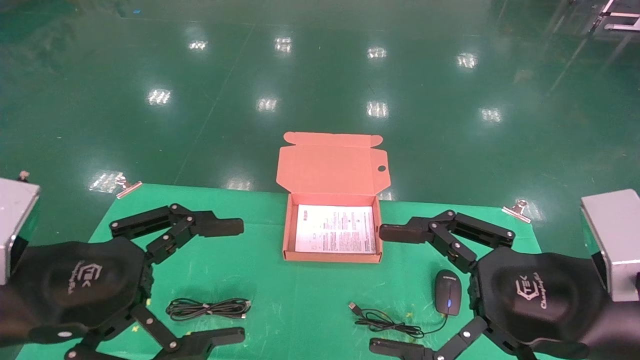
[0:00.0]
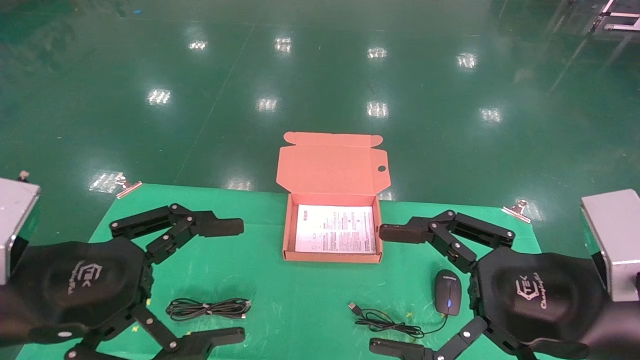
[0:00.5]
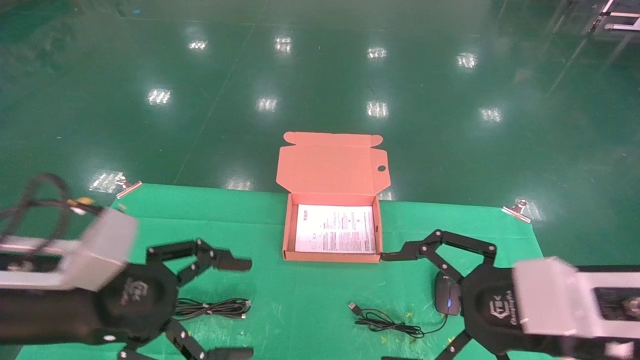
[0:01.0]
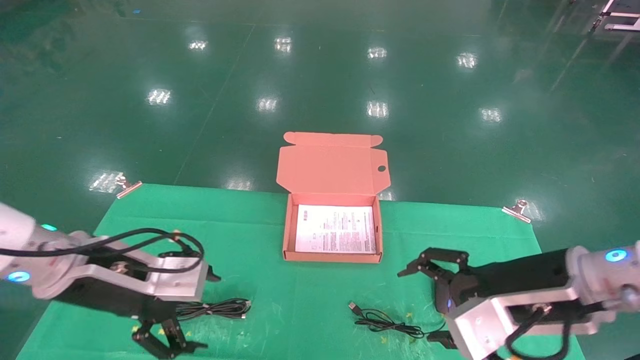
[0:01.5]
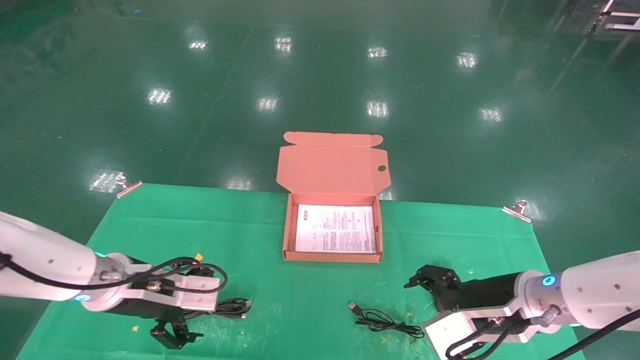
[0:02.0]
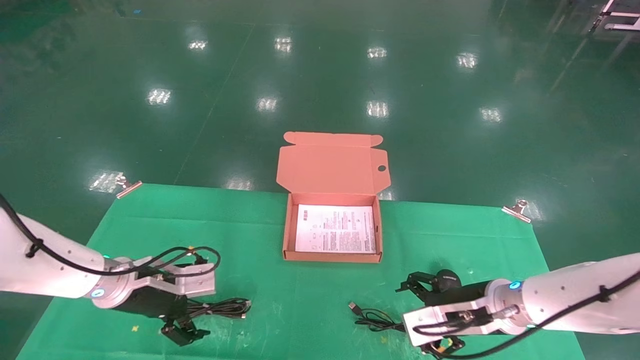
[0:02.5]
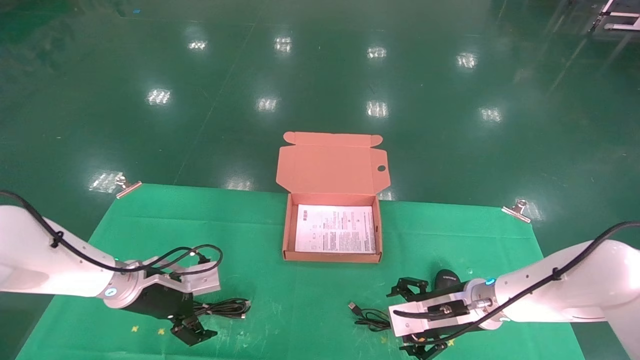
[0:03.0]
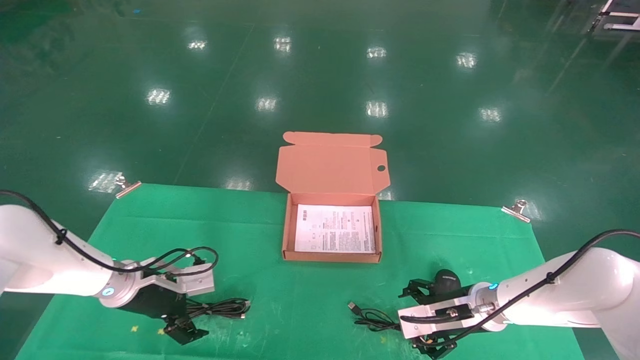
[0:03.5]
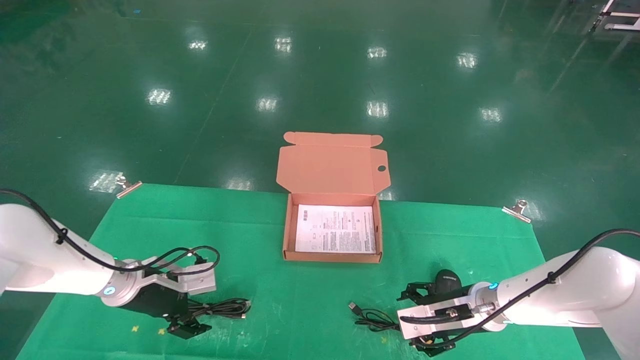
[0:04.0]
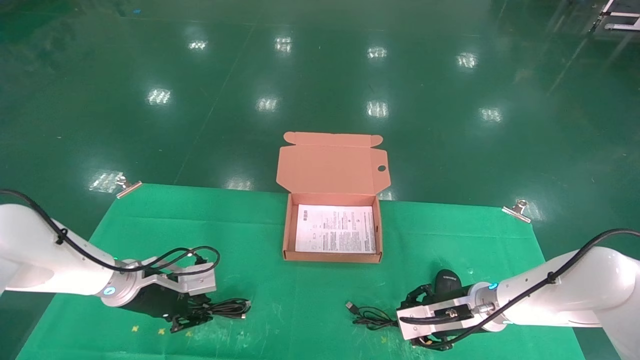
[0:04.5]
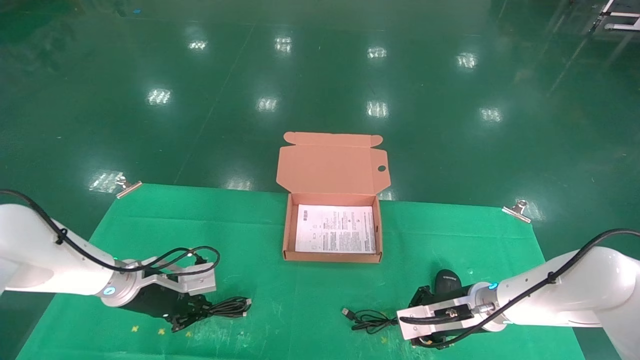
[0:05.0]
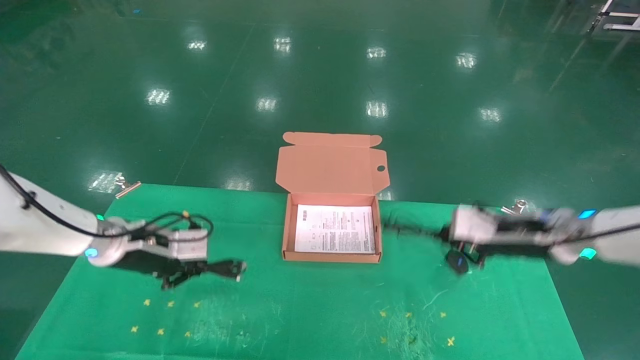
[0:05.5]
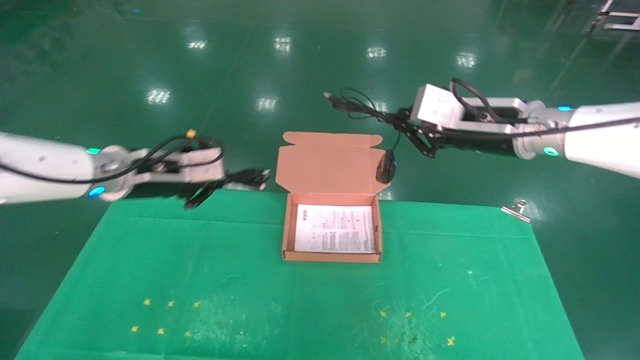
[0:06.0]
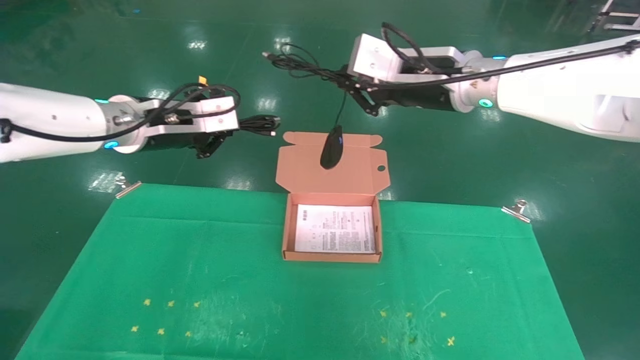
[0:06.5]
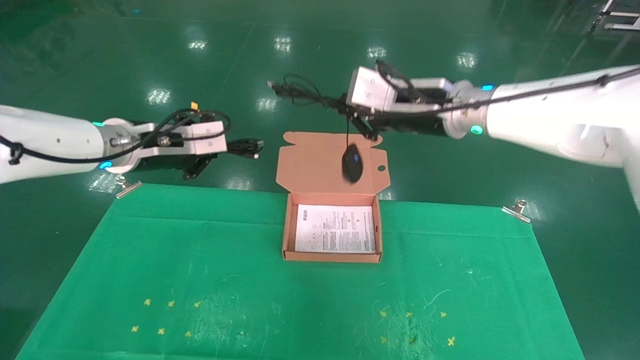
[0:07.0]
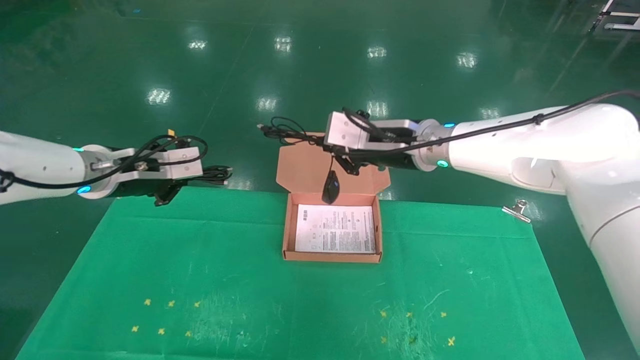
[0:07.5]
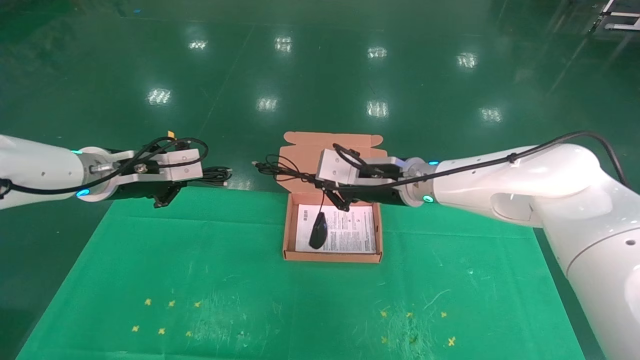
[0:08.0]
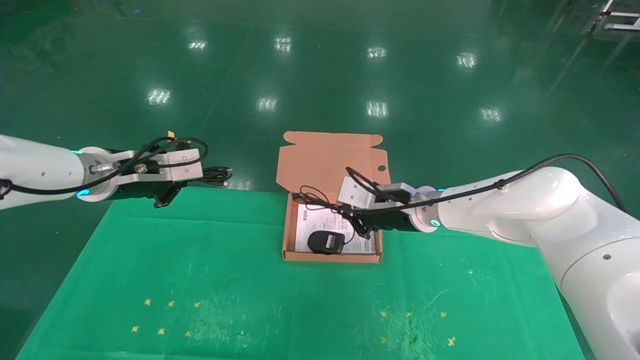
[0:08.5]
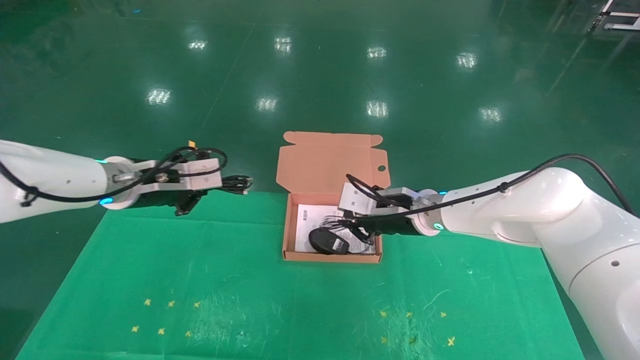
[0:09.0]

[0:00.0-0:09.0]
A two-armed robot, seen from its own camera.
Task of the whole recording: grasp data cable left put into box grasp mouse right put into box.
Step, 0:01.0 to 0:05.0: Grab and pick up both the mouse and power cord from the accessory packaging area at the same time.
0:00.0 to 0:02.0: The two grippers go roughly 20 cm forward and downward.
0:02.0 to 0:04.5: Both grippers travel together forward and downward, some 10 cm. The right gripper closes its fingers, while the left gripper closes its fingers.
0:04.5 to 0:07.0: The grippers both shift upward by some 25 cm. The right gripper closes its fingers.
0:07.0 to 0:09.0: The left gripper travels downward by approximately 5 cm; the right gripper is displaced downward by about 15 cm.

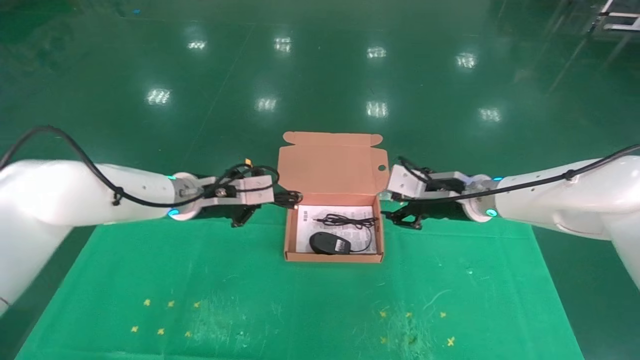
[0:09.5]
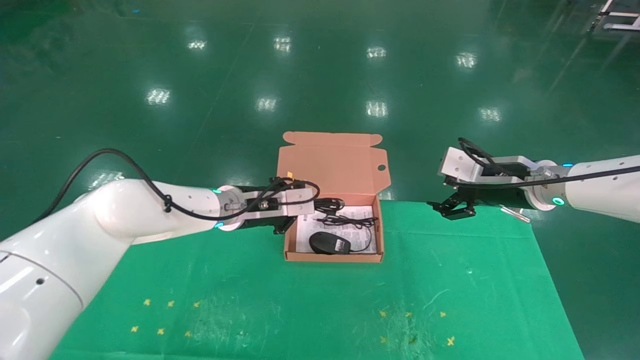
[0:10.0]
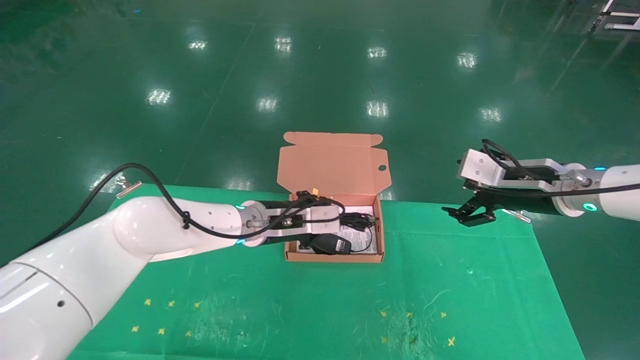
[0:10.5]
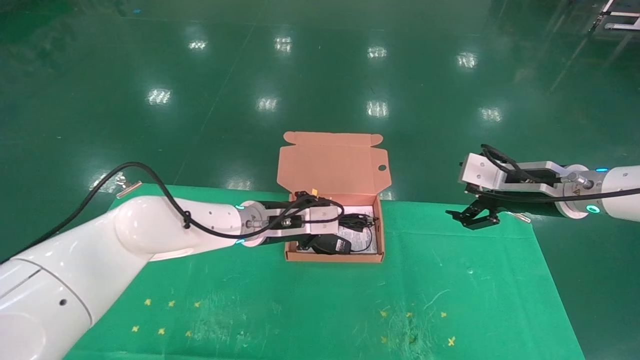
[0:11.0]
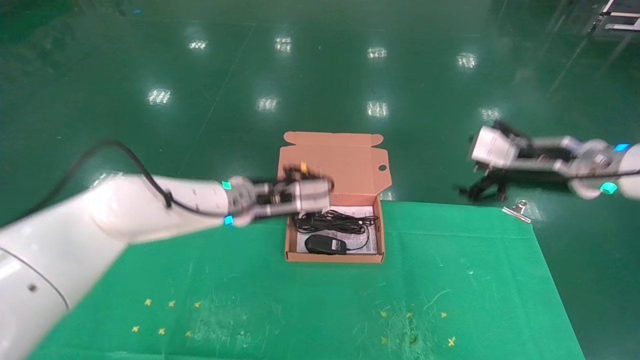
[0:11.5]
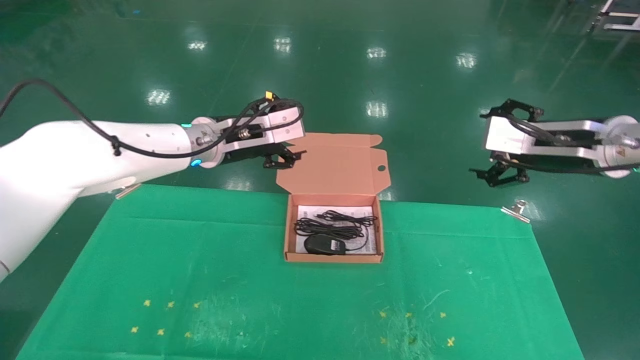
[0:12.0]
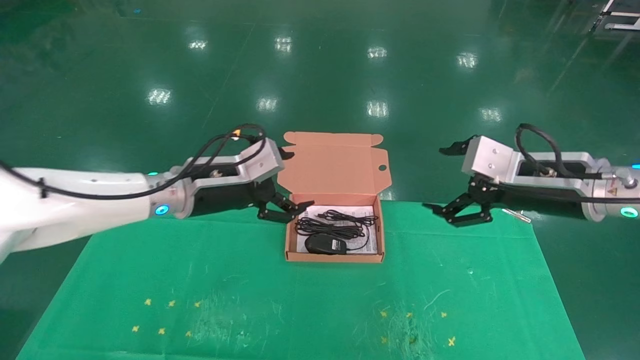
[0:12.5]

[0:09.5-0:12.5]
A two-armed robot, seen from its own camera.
Task of the whole recording: grasp data cable left put into box grasp mouse right put into box.
0:09.5 to 0:11.0: The left gripper shifts roughly 10 cm to the right. Meanwhile the right gripper goes some 10 cm to the right and backward, and opens.
0:11.0 to 0:12.5: The left gripper heads to the left, upward and backward, covering some 15 cm, and opens its fingers, while the right gripper travels backward by approximately 5 cm.

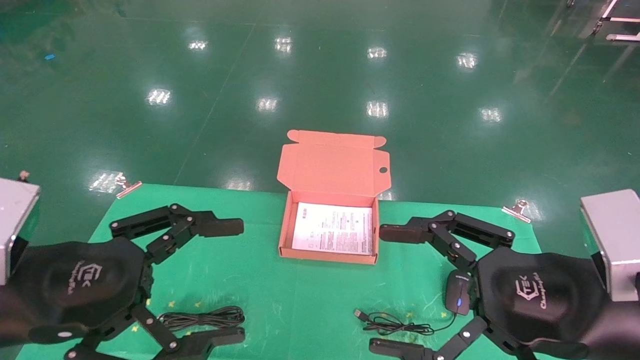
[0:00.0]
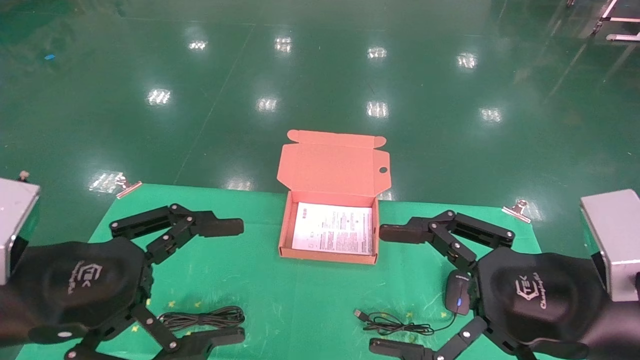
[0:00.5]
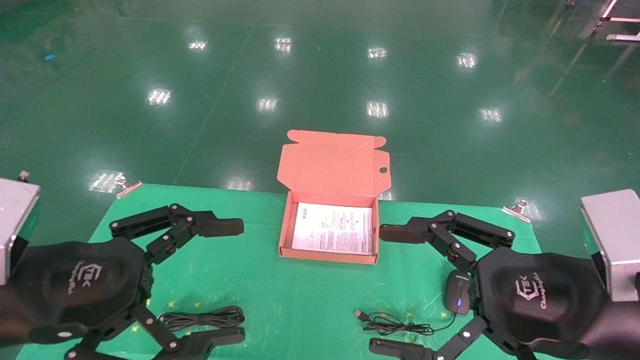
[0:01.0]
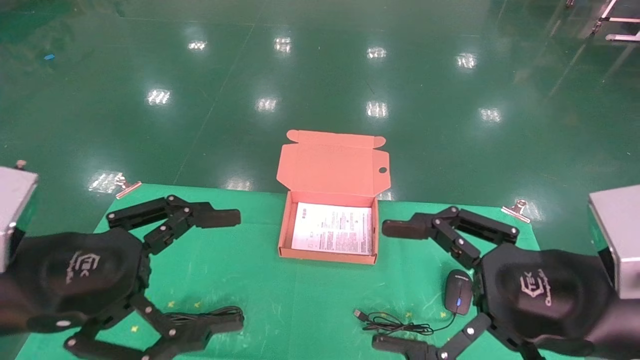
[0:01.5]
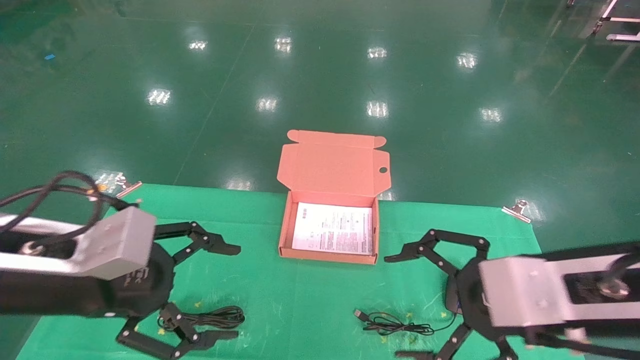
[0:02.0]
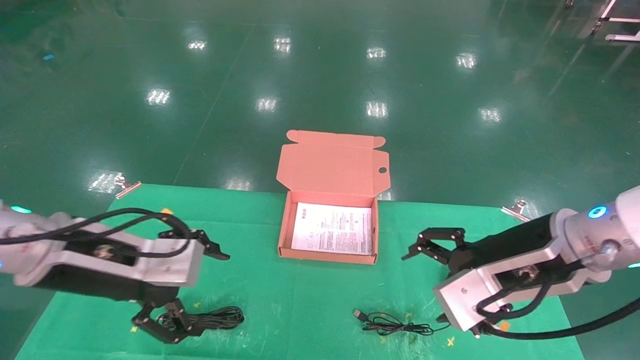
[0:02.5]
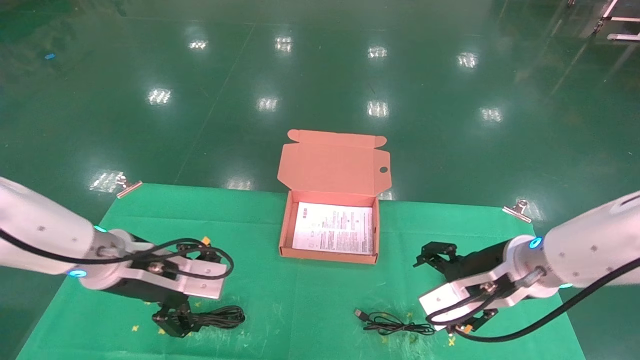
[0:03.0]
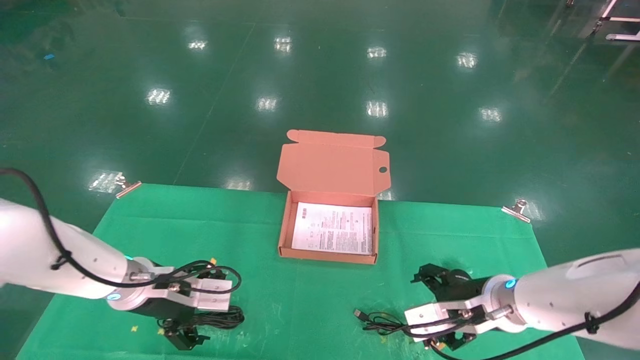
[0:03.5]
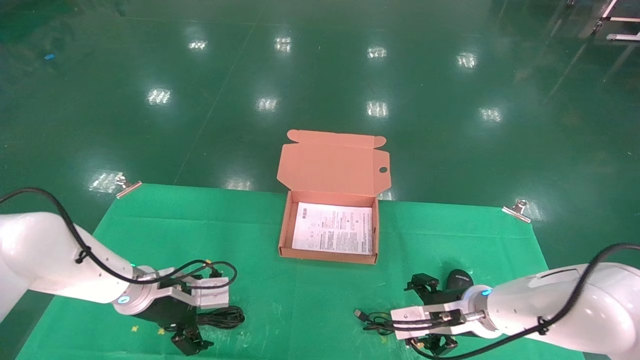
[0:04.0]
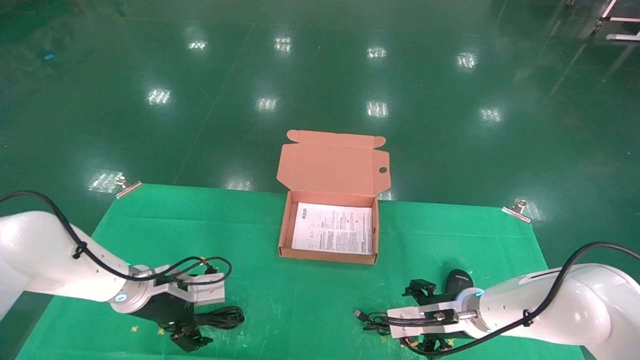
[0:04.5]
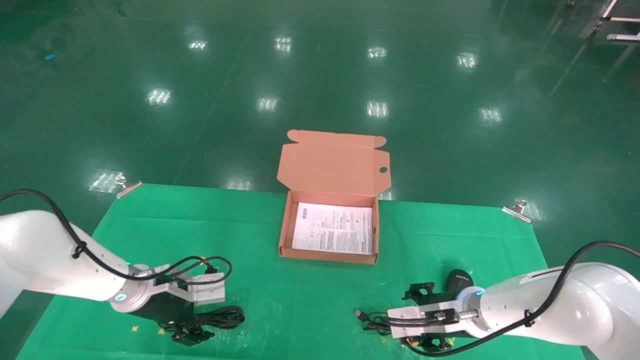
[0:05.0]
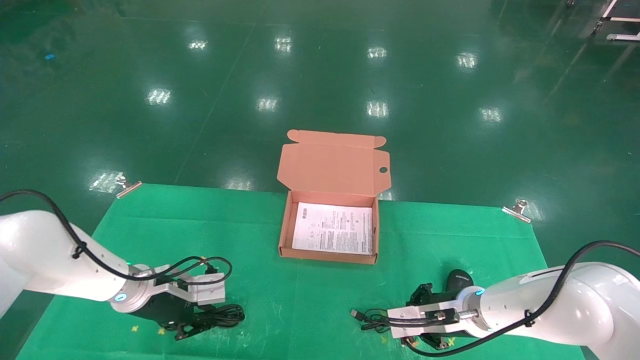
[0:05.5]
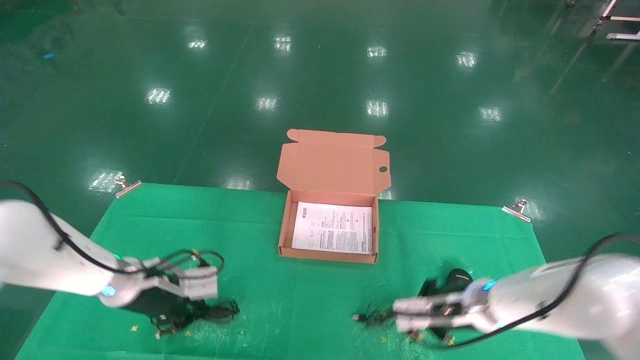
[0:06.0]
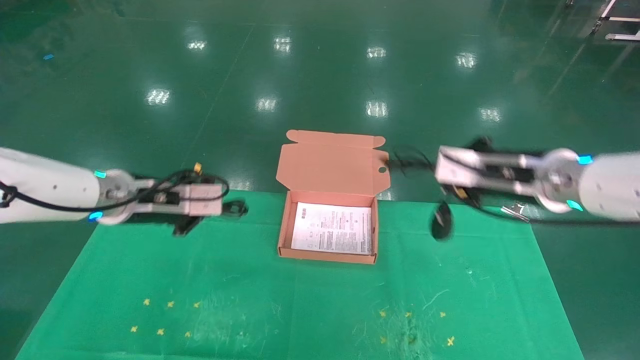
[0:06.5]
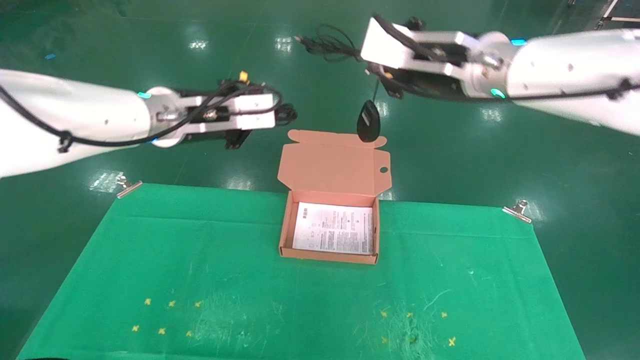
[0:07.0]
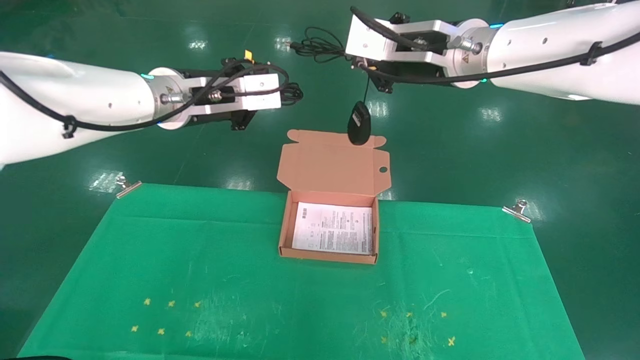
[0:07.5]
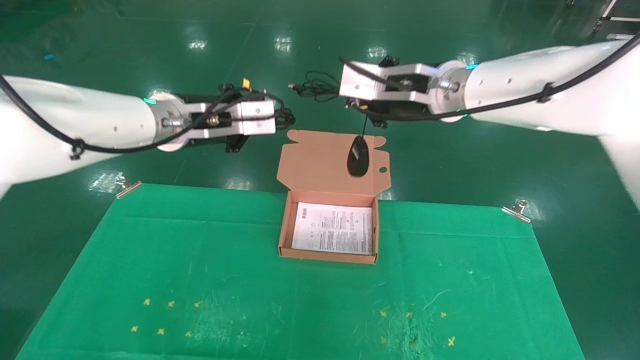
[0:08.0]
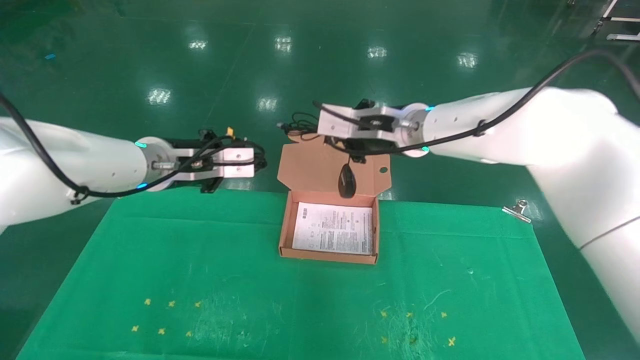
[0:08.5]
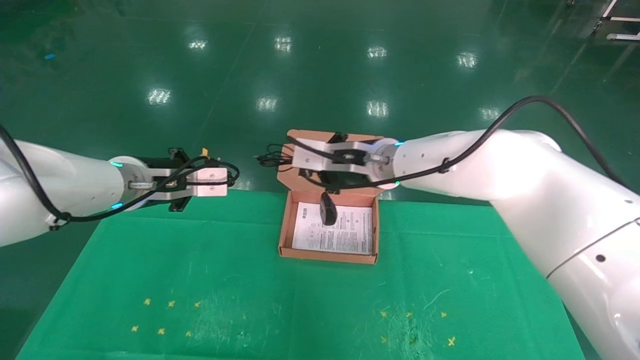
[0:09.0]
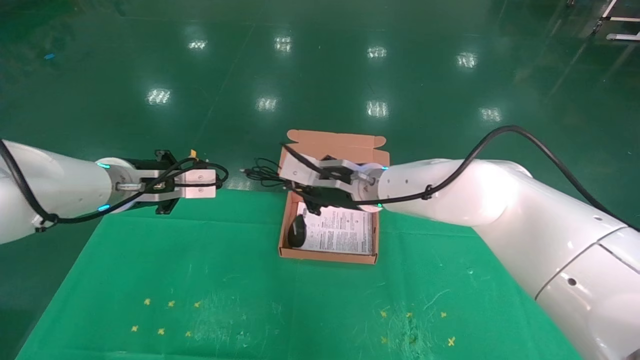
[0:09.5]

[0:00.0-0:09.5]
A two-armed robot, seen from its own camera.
Task of the whole recording: grasp data cable left put into box grasp mouse right put into box.
Step, 0:01.0 to 0:06.0: Grab and pick up both the mouse and power cord from the accessory packaging area at the same time.
0:00.0 to 0:02.0: The two grippers go roughly 5 cm forward.
0:02.0 to 0:04.0: The right gripper is displaced downward and forward by roughly 25 cm. Meanwhile the left gripper moves forward and downward, about 25 cm.
0:04.0 to 0:05.5: The right gripper closes. The left gripper closes its fingers.
0:05.5 to 0:07.5: Both grippers move upward, approximately 30 cm.
0:07.5 to 0:09.5: Both grippers move downward and to the left, approximately 15 cm.
